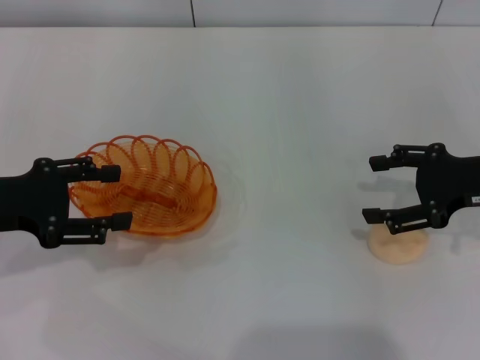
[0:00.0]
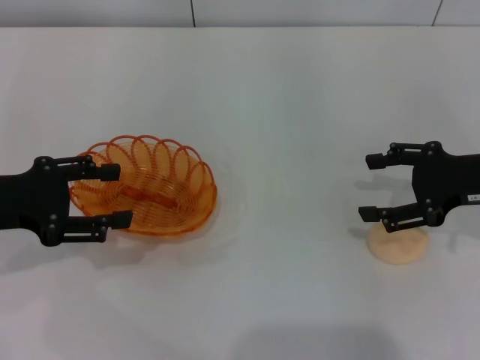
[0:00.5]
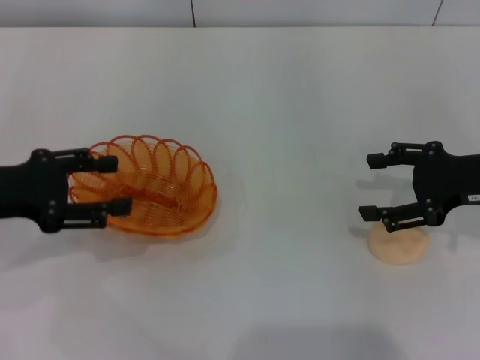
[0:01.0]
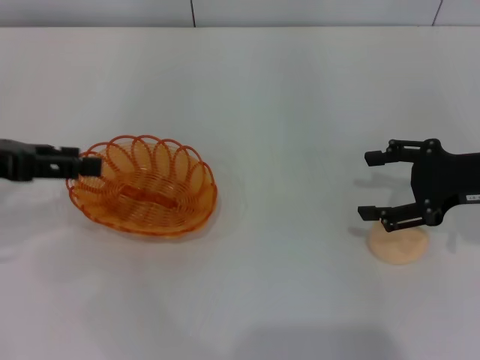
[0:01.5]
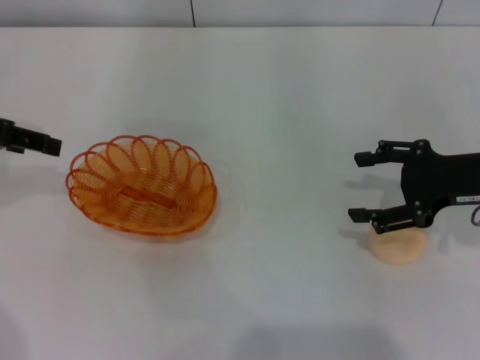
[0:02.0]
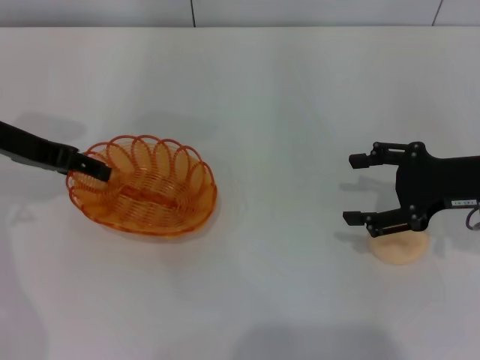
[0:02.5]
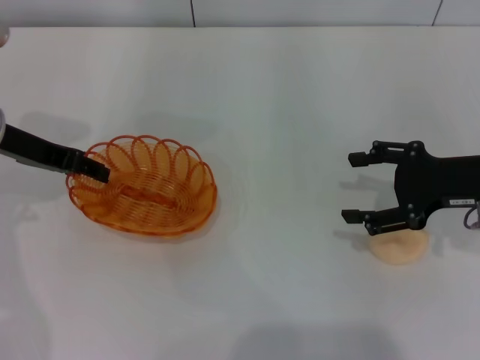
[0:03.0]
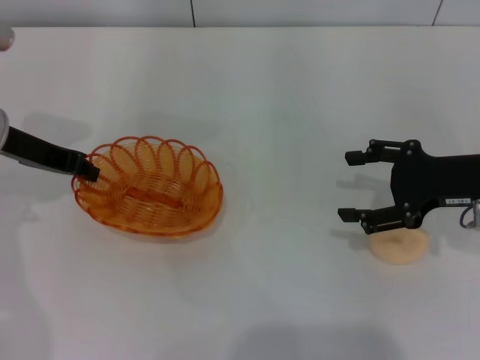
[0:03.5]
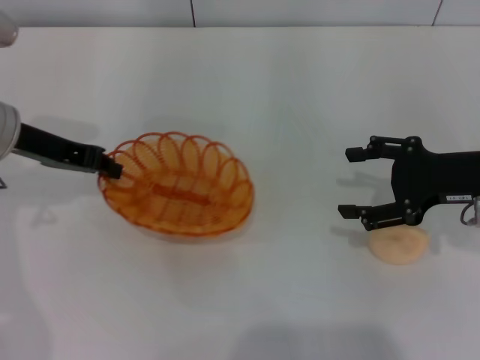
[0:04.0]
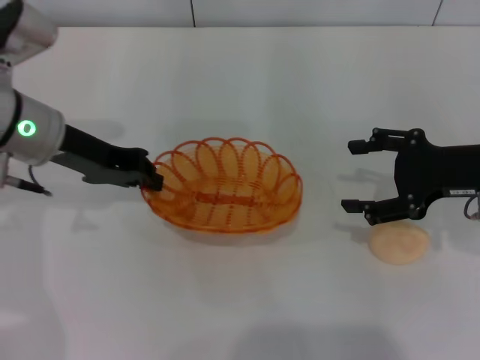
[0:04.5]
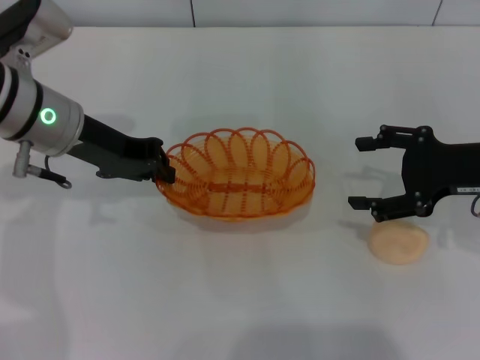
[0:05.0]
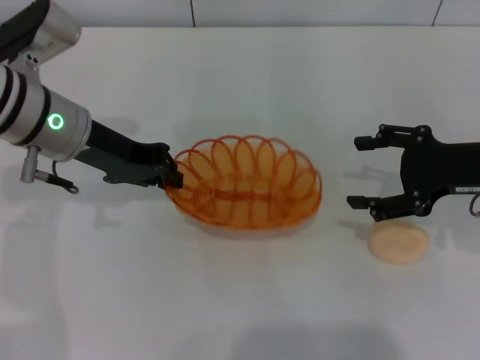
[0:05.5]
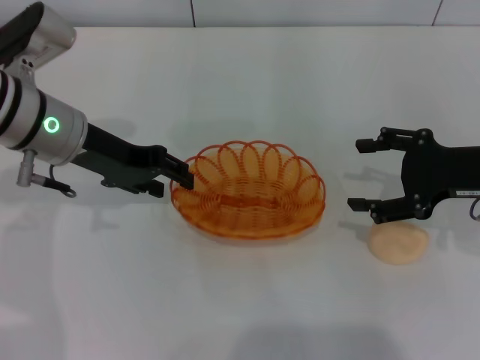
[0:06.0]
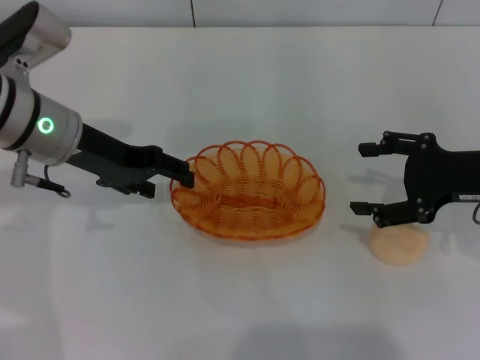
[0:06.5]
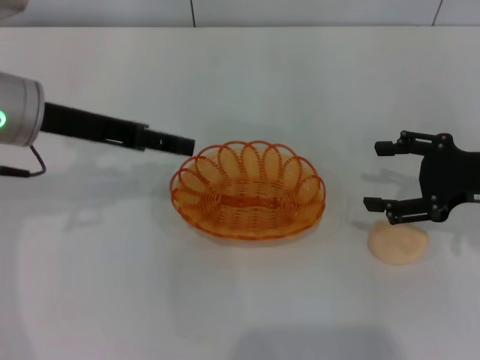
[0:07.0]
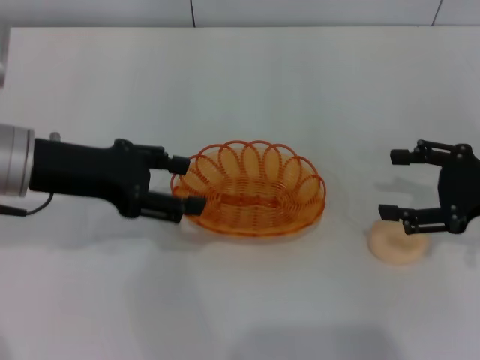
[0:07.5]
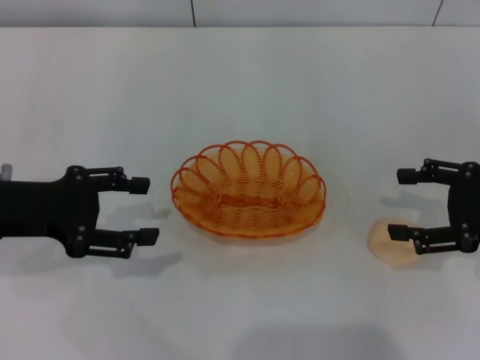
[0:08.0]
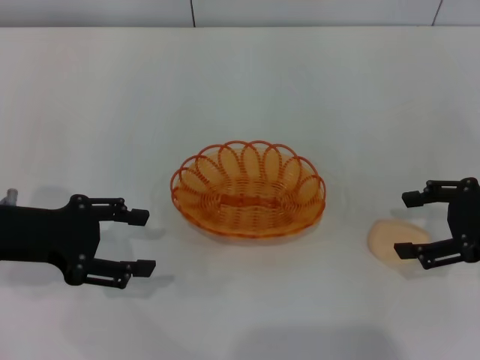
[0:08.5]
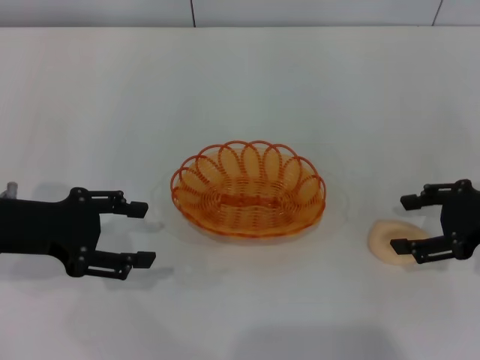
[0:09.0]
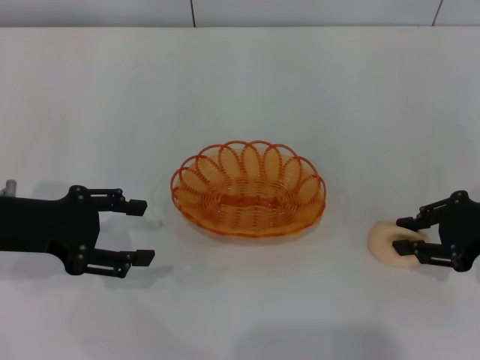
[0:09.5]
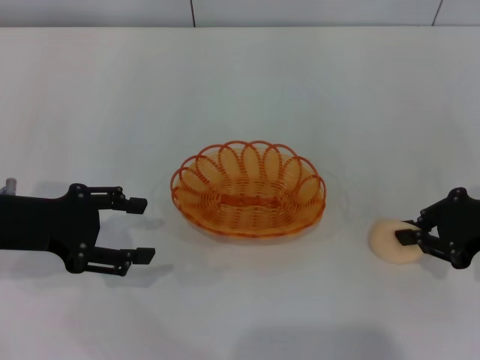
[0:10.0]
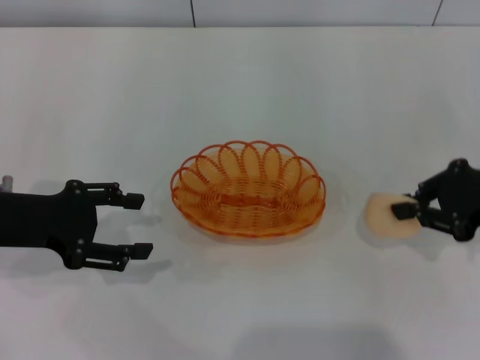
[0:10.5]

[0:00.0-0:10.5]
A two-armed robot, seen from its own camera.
Step, 0:00.0 to 0:04.5: Pick up the basket with the left gripper.
Step, 0:05.0 to 0:06.5: Place the basket in the center of view with the left gripper.
0:00.0 to 0:02.0: The left gripper travels upward and forward by some 10 cm.
0:02.0 to 0:04.0: The left gripper shifts approximately 10 cm to the right and downward, and closes its fingers.
0:04.0 to 0:06.5: The left gripper goes some 5 cm to the right, and opens up.
0:06.5 to 0:08.5: The left gripper goes some 10 cm backward and to the left.
0:08.5 to 0:10.5: The right gripper closes up.

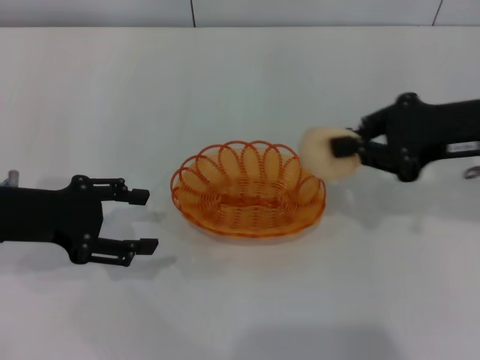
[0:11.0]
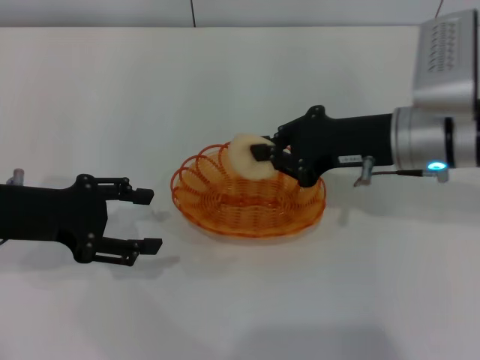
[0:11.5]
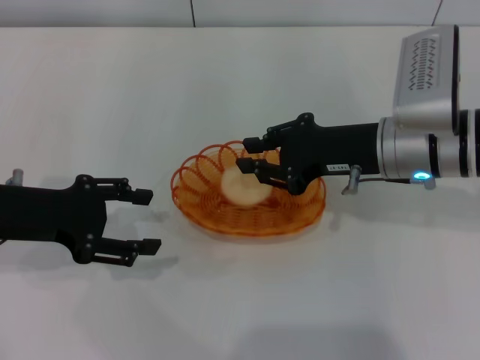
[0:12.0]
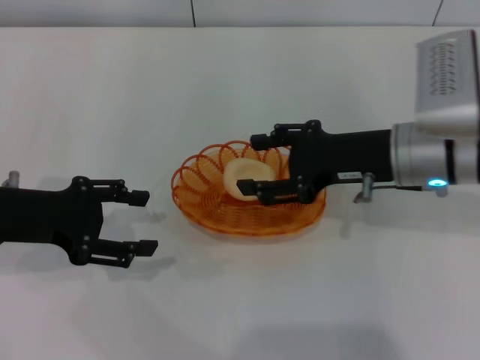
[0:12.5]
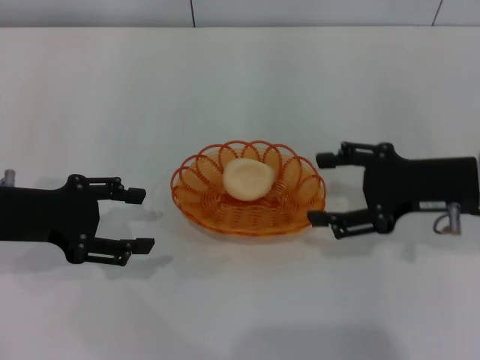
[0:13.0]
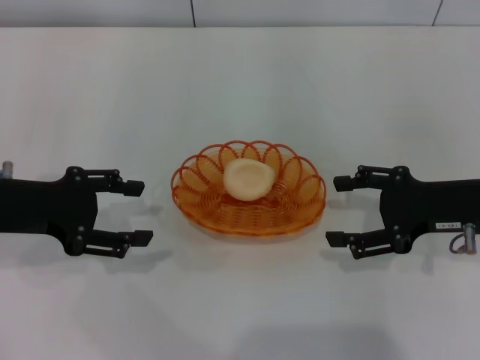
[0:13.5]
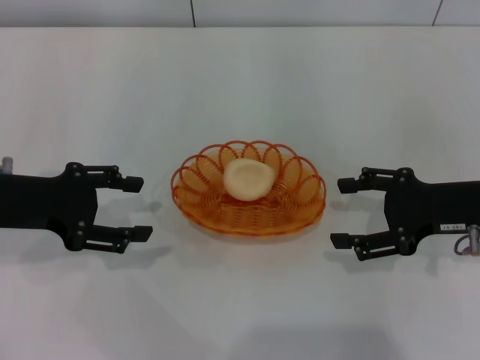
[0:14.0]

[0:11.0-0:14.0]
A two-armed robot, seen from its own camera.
Step, 0:11.0 to 0:12.5: Place the egg yolk pastry into the basket with the right gripper.
0:11.0 to 0:12.5: The right gripper moves to the left and downward, roughly 10 cm, and opens up.
0:12.5 to 0:14.0: The right gripper is displaced to the right by roughly 10 cm.
